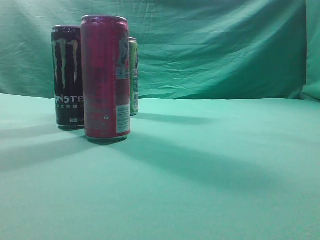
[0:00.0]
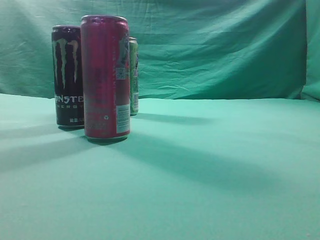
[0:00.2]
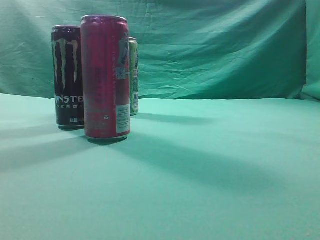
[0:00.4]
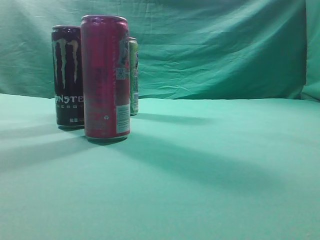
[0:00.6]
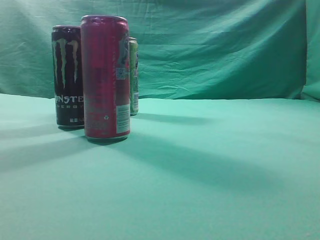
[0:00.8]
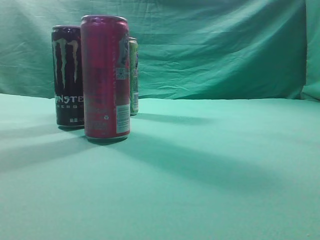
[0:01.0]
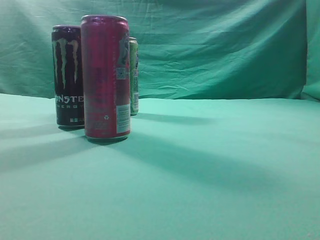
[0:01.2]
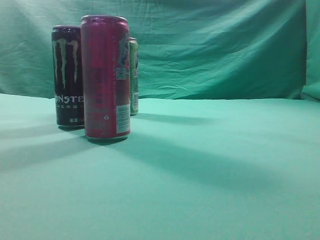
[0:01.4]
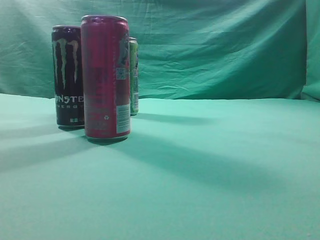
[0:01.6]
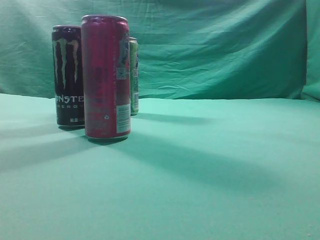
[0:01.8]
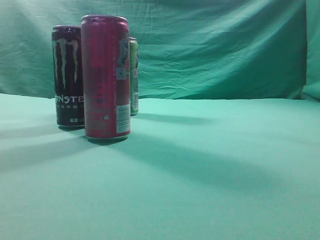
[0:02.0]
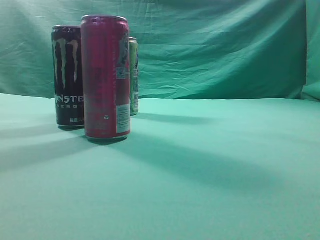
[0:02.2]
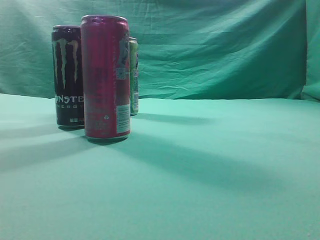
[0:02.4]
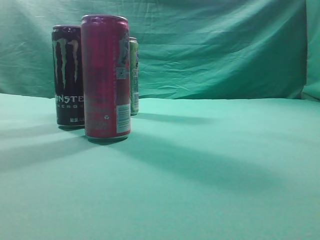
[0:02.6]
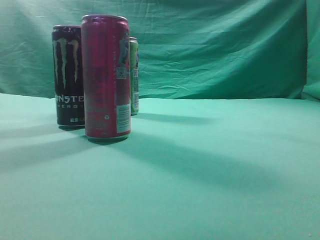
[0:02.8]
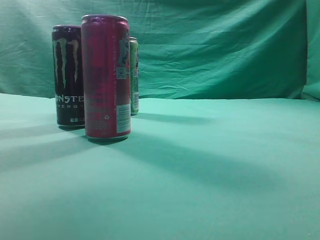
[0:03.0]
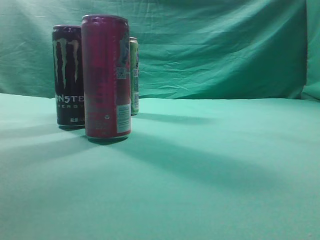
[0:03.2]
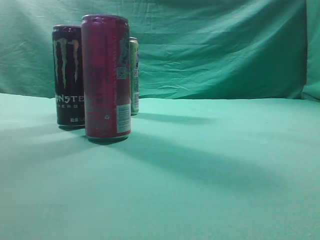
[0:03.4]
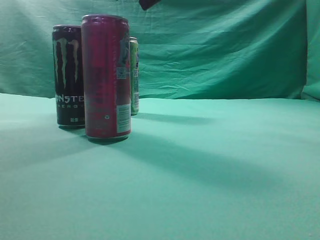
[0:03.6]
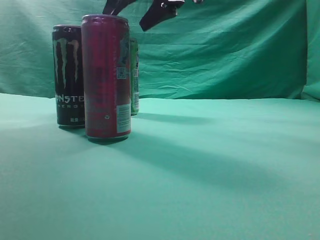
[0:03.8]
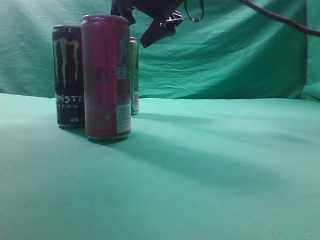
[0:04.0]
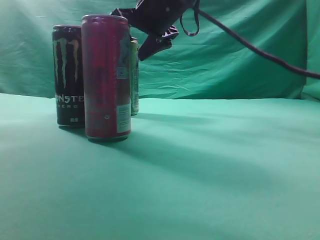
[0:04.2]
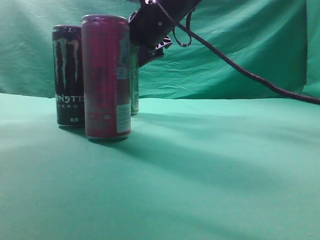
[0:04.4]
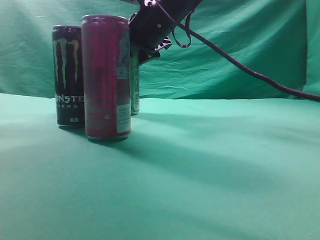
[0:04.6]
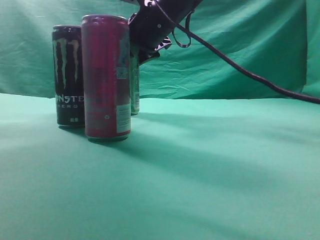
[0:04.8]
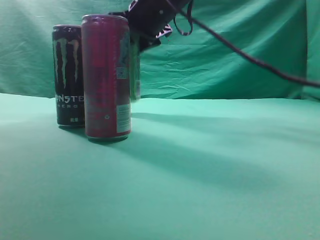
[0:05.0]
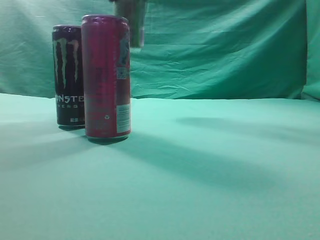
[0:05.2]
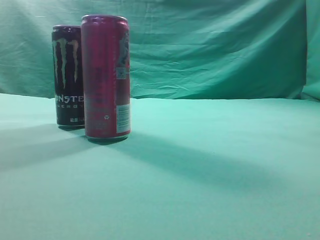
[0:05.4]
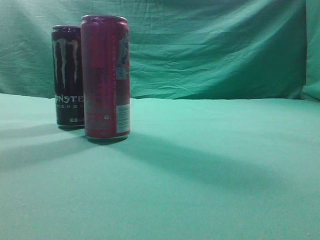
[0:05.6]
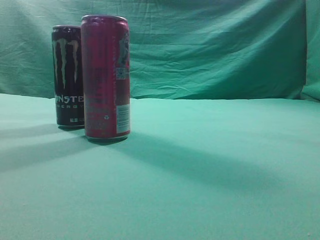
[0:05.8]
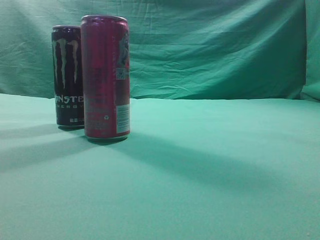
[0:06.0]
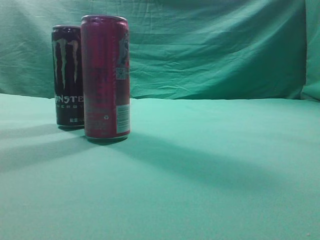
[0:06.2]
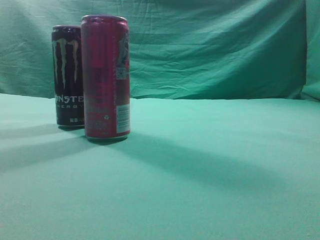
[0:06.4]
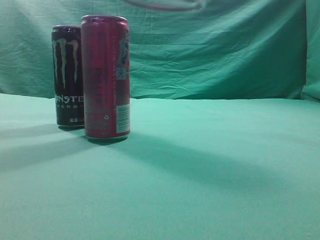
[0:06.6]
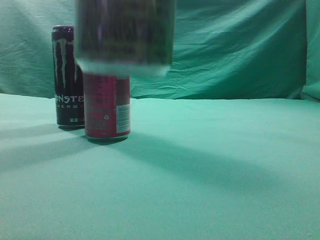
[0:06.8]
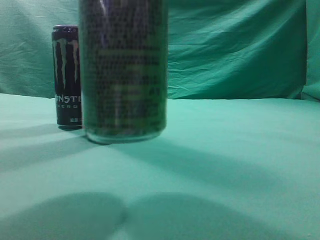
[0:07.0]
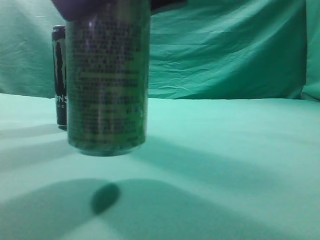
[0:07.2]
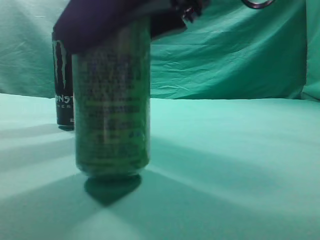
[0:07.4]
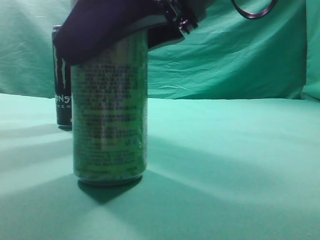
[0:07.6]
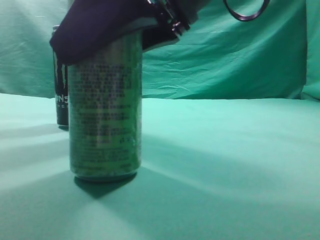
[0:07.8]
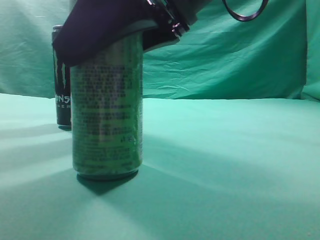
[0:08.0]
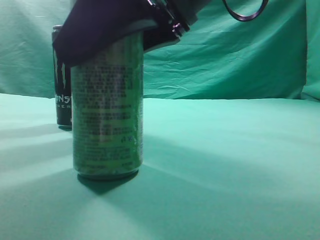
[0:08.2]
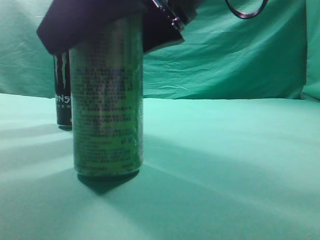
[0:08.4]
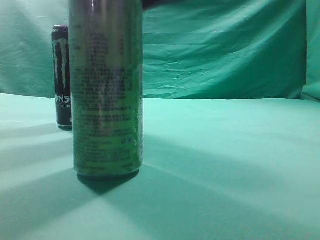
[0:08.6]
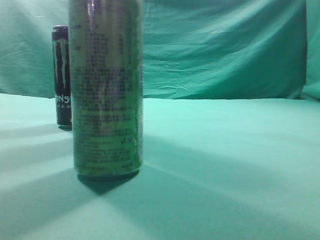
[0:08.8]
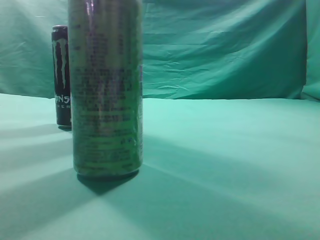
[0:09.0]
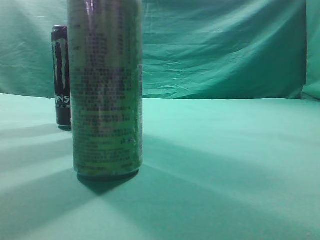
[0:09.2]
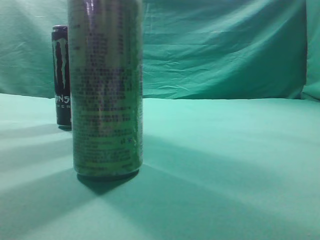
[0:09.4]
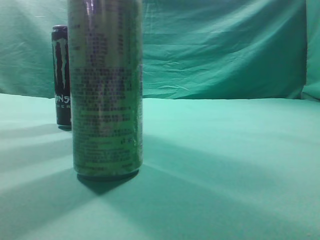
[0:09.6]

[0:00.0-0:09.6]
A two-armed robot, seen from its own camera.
Task of the whole recording: move one drink among three beverages.
Step, 0:00.0 to 0:05.0: Grasp the beverage bottle placed at the back of the desk.
Step, 0:05.2 to 0:08.6: Place the beverage bottle to the front of the table.
0:03.2 to 0:04.8: The right gripper travels downward, forward and to the left by approximately 20 cm, and opens up.
0:04.8 to 0:06.4: The right gripper shifts some 35 cm backward, to the right and upward.
0:06.4 to 0:08.0: The right gripper heads downward, to the left and forward, covering about 15 cm.
0:08.0 to 0:09.6: The right gripper shifts about 20 cm upward, to the right and backward, and closes.
